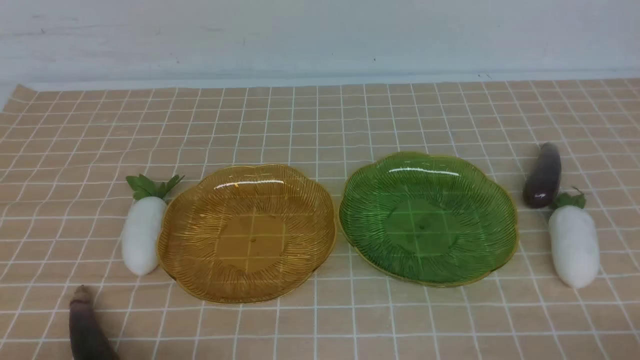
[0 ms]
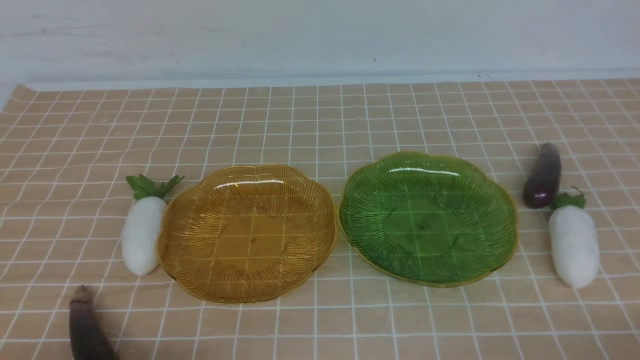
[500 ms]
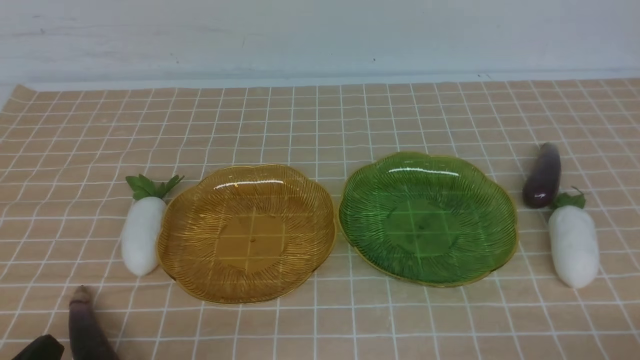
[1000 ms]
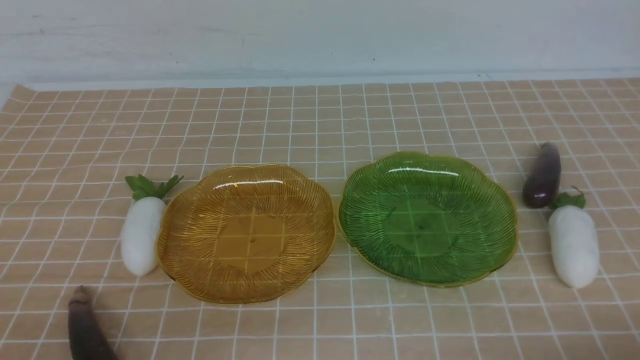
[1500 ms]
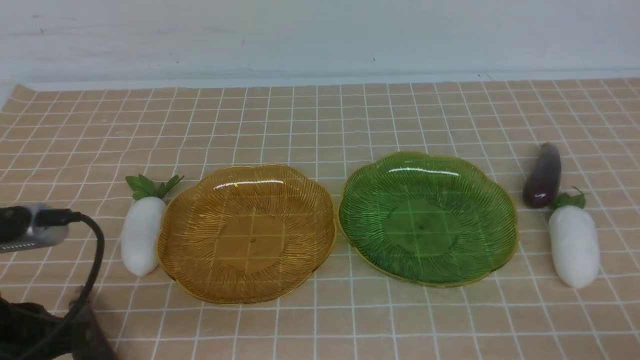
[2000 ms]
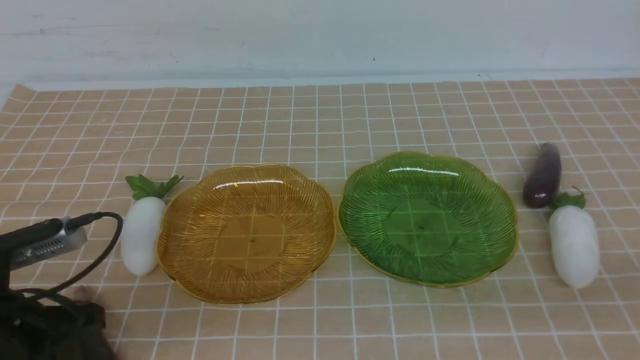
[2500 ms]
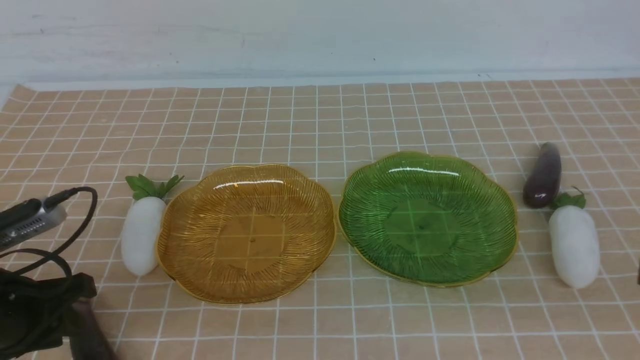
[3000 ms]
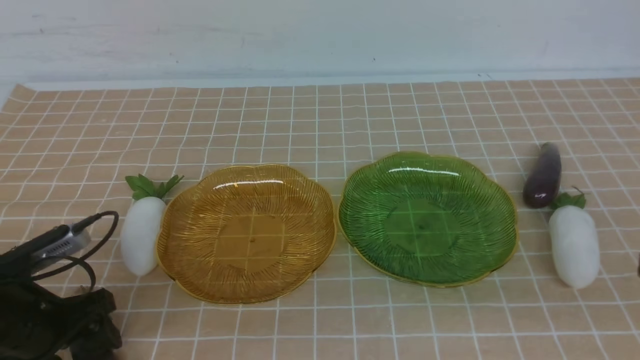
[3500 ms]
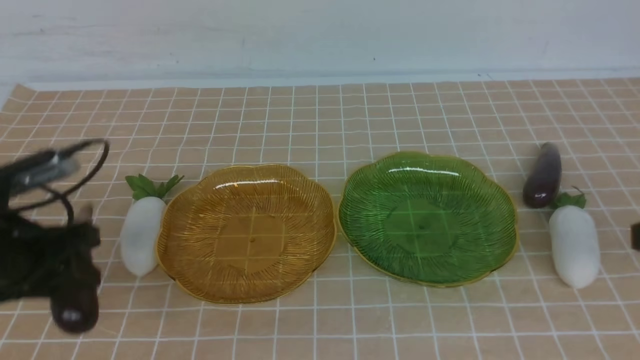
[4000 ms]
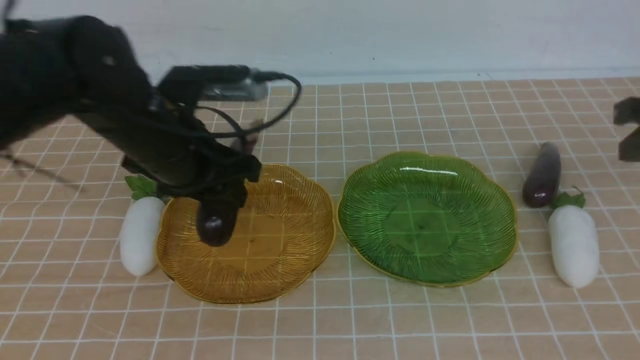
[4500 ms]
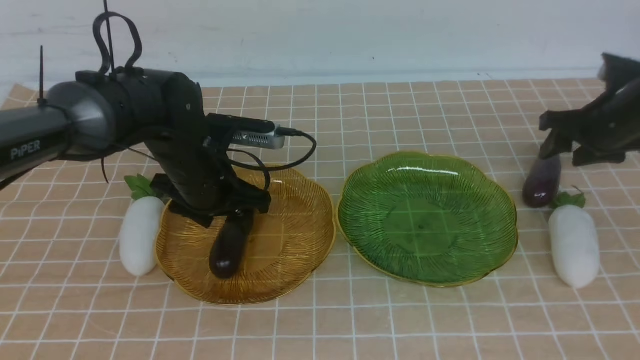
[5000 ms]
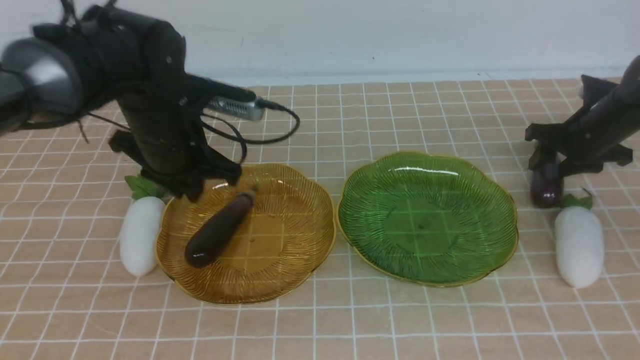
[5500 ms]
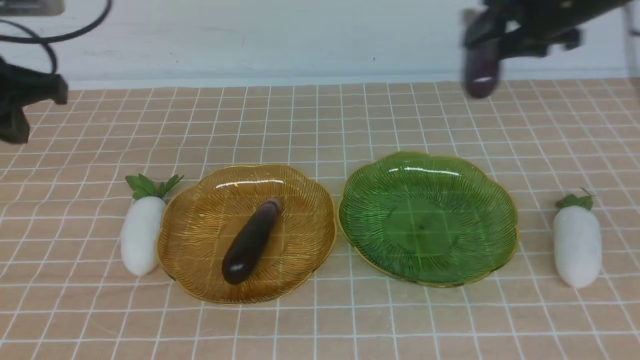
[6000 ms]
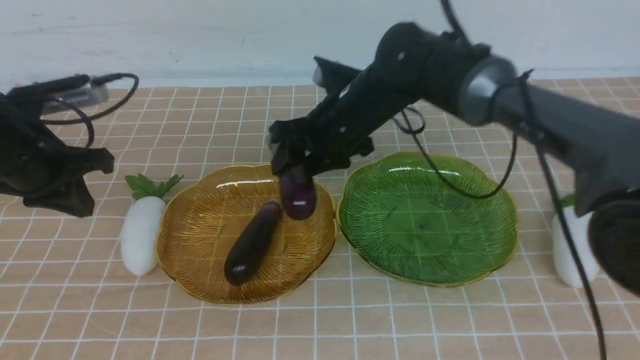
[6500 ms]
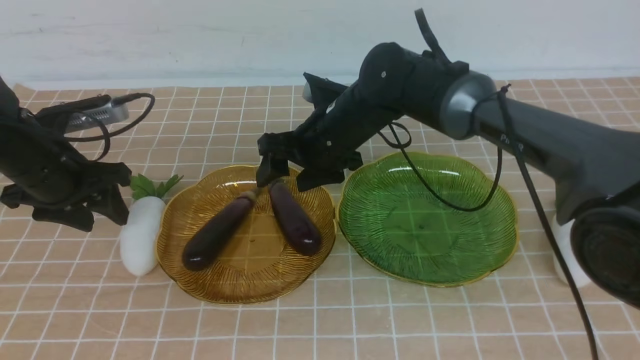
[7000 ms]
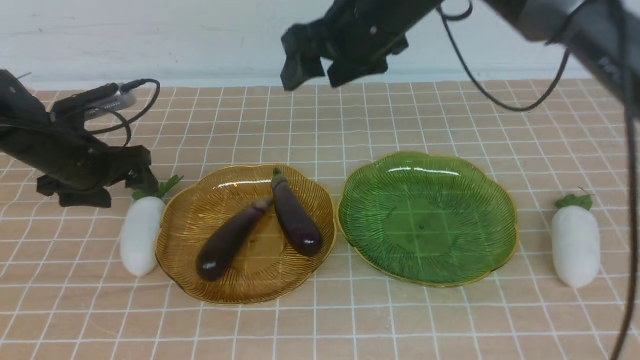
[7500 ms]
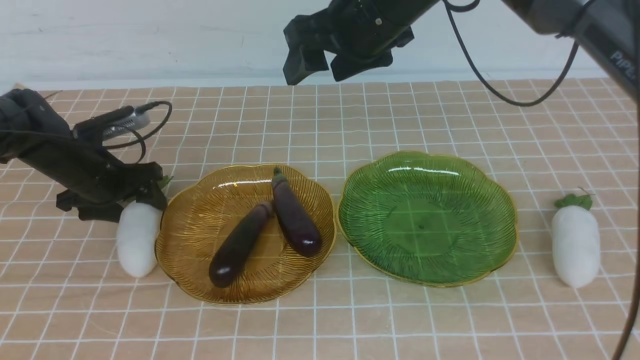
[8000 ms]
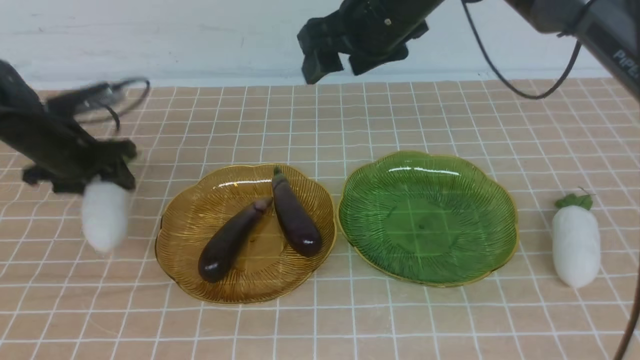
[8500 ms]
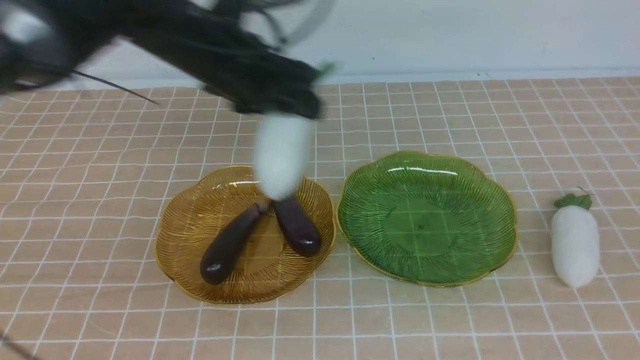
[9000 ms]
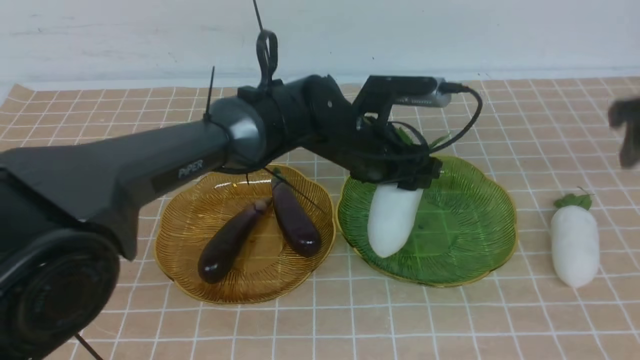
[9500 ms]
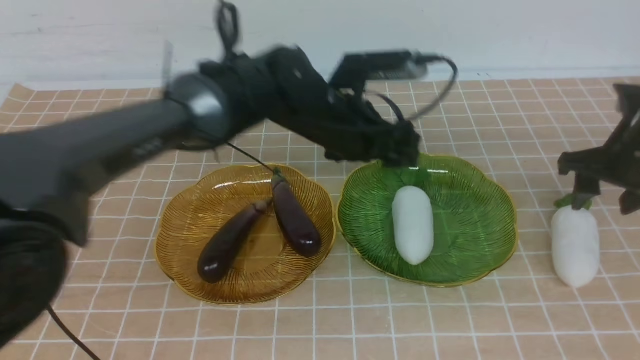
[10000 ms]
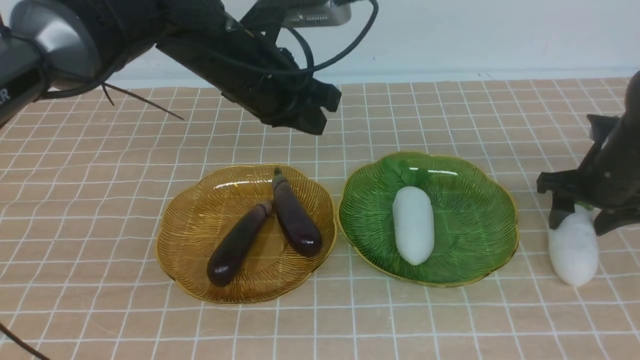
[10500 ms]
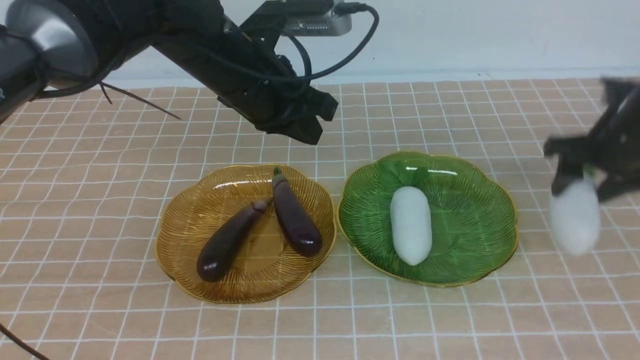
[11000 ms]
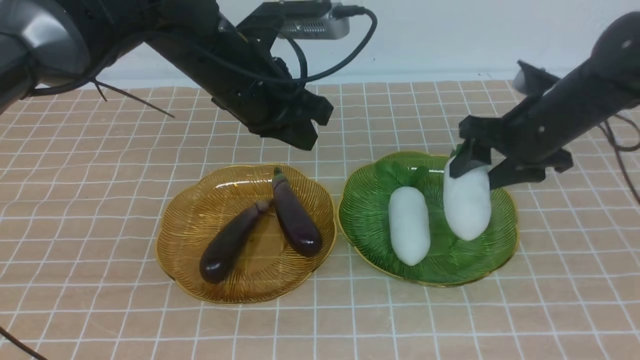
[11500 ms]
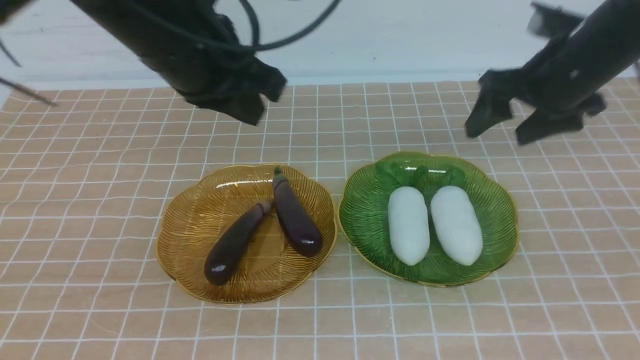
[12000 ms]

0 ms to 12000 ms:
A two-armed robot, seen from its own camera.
Step, 0 ms to 5000 ms: use the left arm to grab an eggplant and put it into the left plate.
Step, 5500 ms to 7000 ms: use the right arm to grab an eggplant and put it into the left plate.
Step, 7500 ms to 9500 ms: use the left arm to grab a radish and put it into the right plate.
Step, 10000 ms to 11500 ms: use the right arm to grab a radish and put it into the right plate.
0 ms to 2000 ms: The left gripper goes roughly 15 cm upward and forward.
2000 ms to 4000 ms: The left gripper shifts roughly 10 cm forward, and opens up. Meanwhile the right gripper heads upward and forward, covering roughly 15 cm.
4000 ms to 6000 ms: The right gripper moves forward, some 30 cm, and opens up. Meanwhile the left gripper moves upward and forward, approximately 10 cm, moves about 15 cm to the right and comes back, and closes.
6000 ms to 8000 ms: The right gripper goes roughly 15 cm to the left and backward. Meanwhile the left gripper moves downward and forward, about 20 cm, and opens.
8000 ms to 10000 ms: The right gripper travels to the right and downward by some 30 cm, while the left gripper travels to the right by about 30 cm.
10000 ms to 12000 ms: The right gripper moves upward, approximately 20 cm, and closes, while the left gripper is displaced upward, to the left and backward by about 25 cm, and closes its fingers.

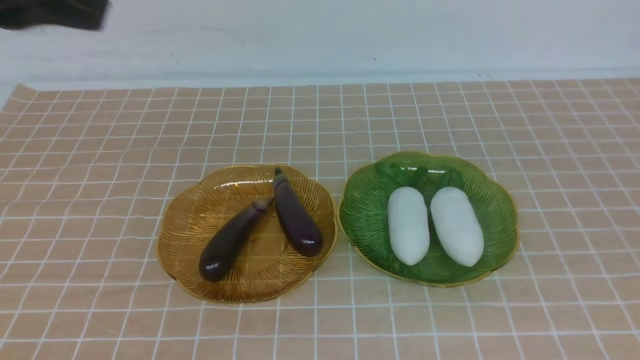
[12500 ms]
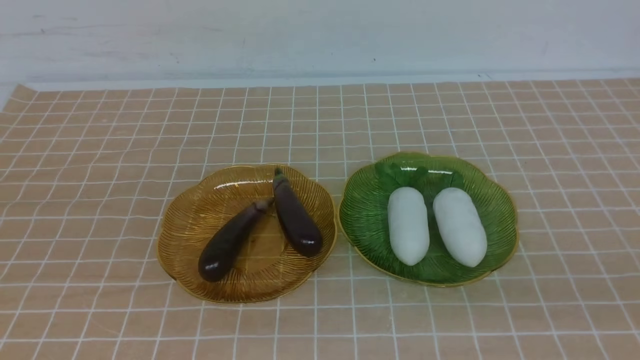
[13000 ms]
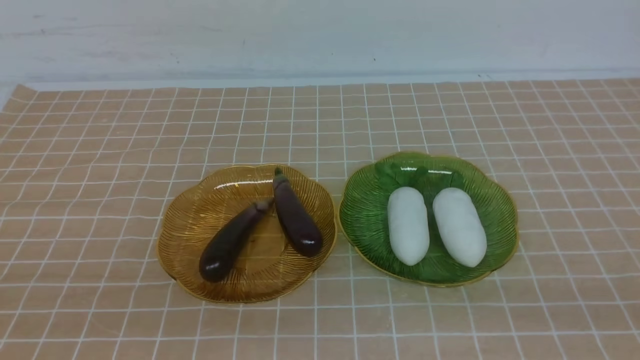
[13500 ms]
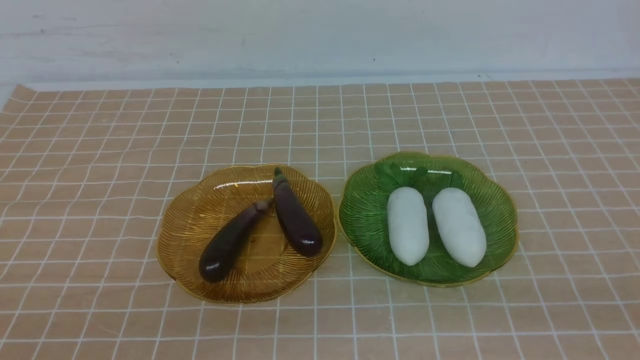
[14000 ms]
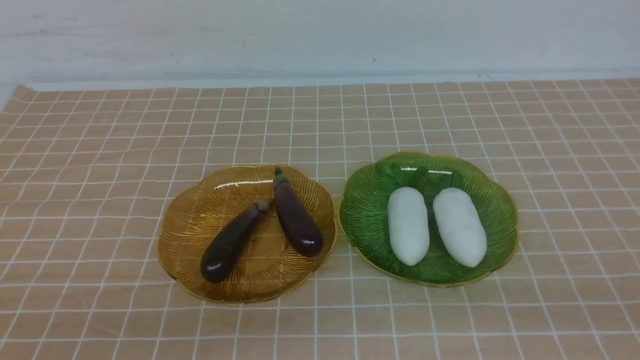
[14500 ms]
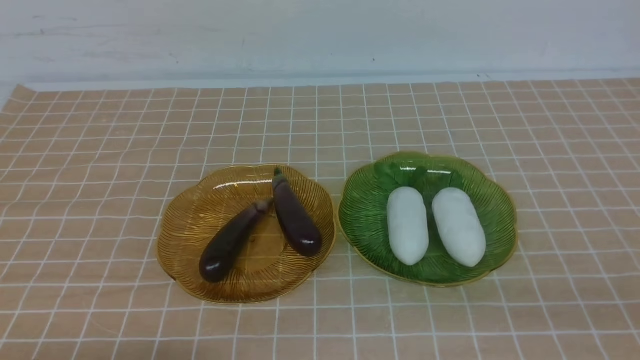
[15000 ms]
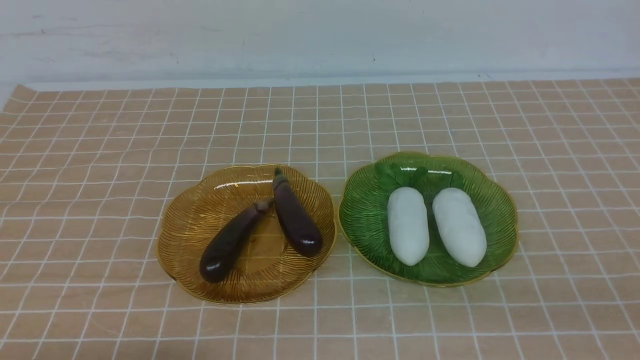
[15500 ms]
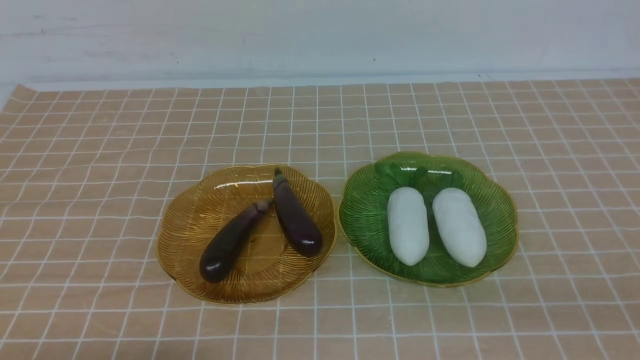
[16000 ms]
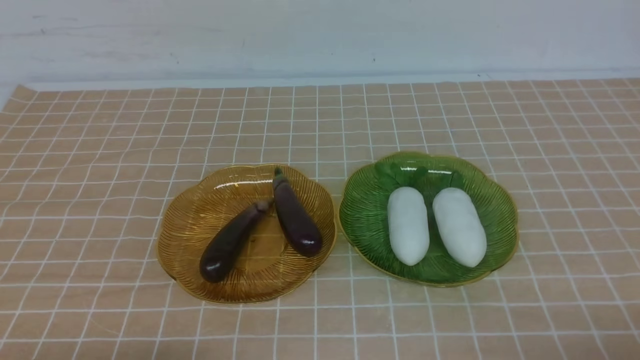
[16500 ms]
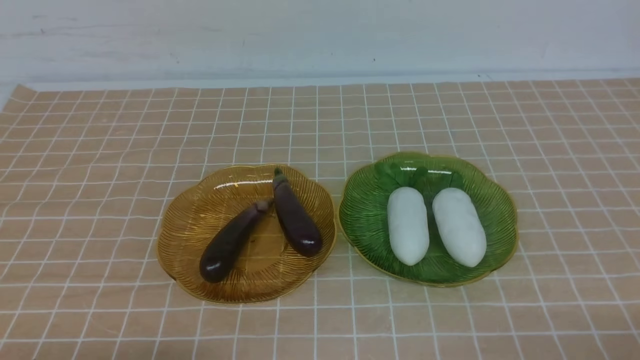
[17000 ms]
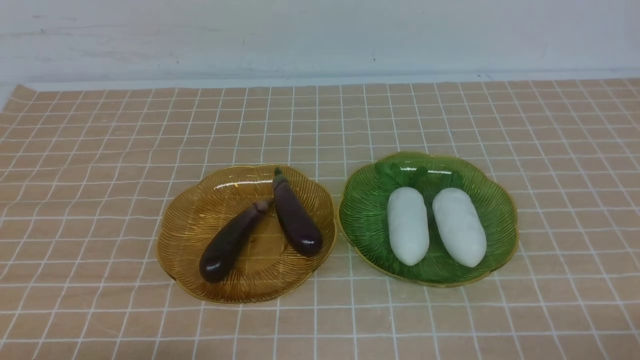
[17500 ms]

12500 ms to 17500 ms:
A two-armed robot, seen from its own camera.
12500 ms to 15000 ms: The left gripper goes roughly 35 cm downward. Meanwhile the right gripper heads downward and backward, covering about 15 cm.
